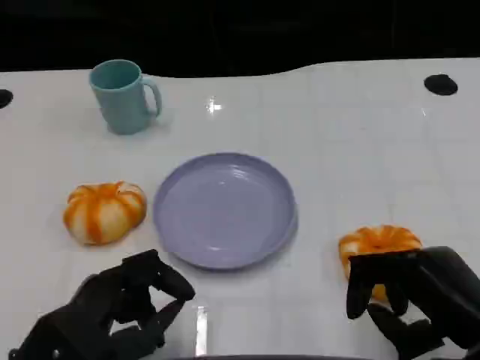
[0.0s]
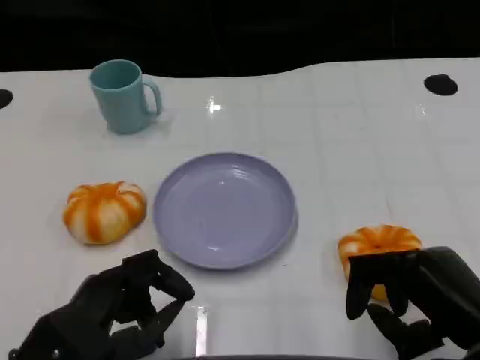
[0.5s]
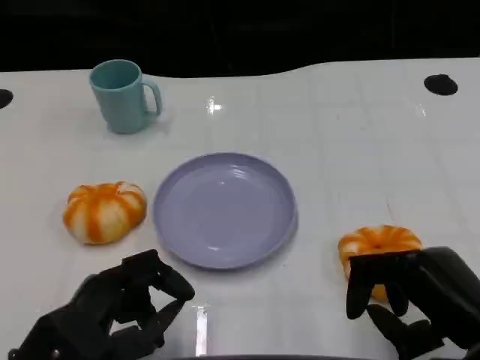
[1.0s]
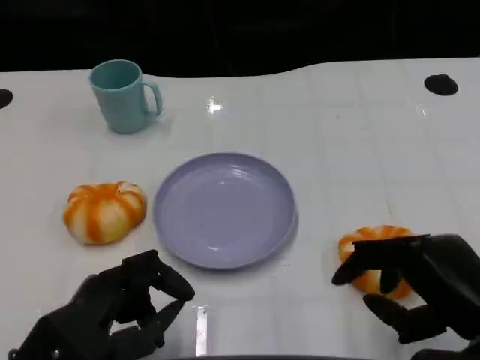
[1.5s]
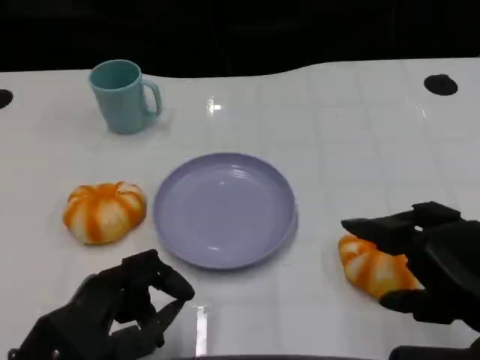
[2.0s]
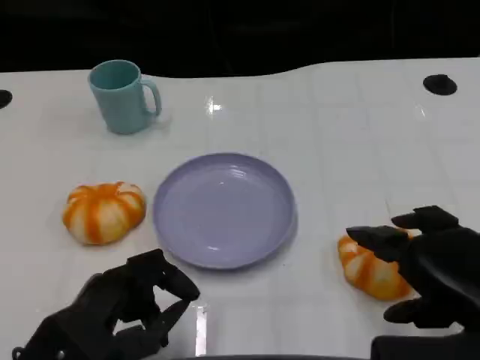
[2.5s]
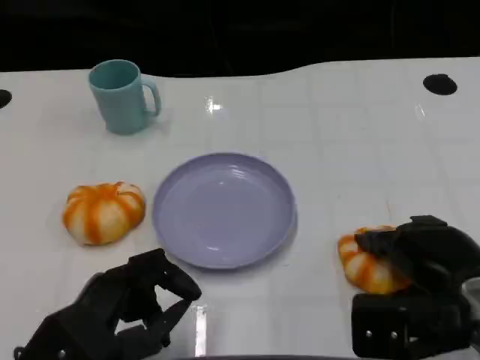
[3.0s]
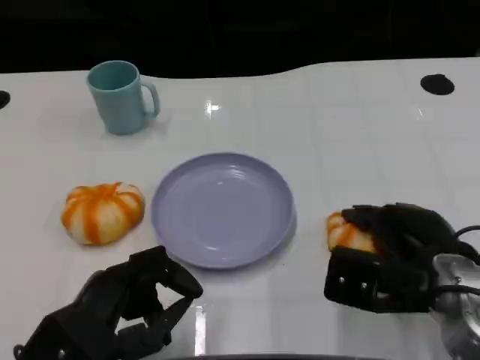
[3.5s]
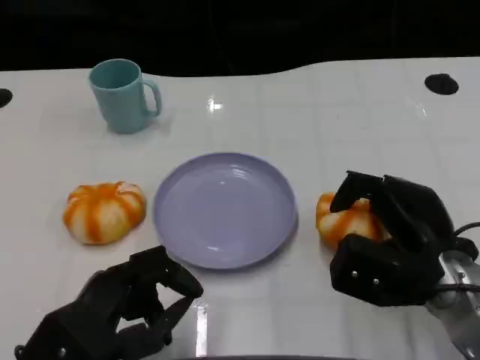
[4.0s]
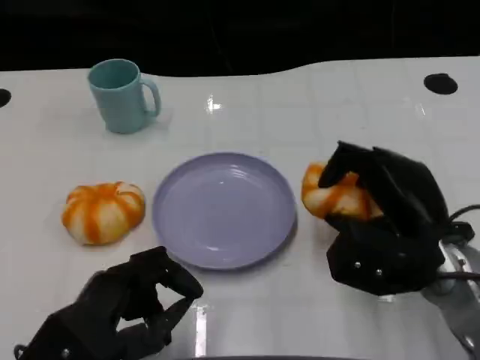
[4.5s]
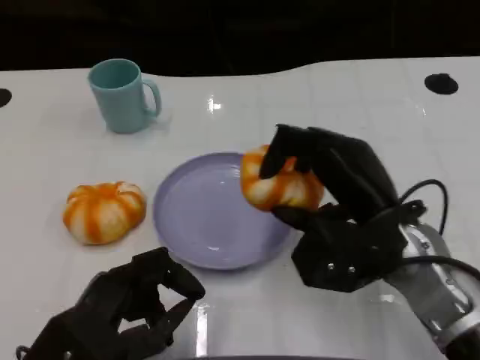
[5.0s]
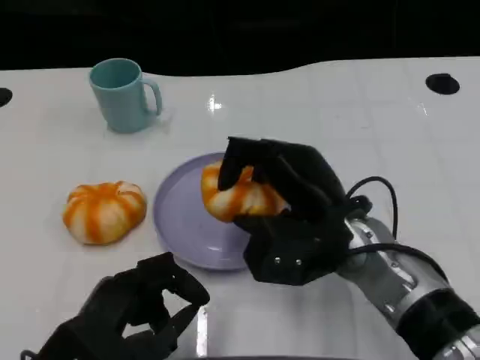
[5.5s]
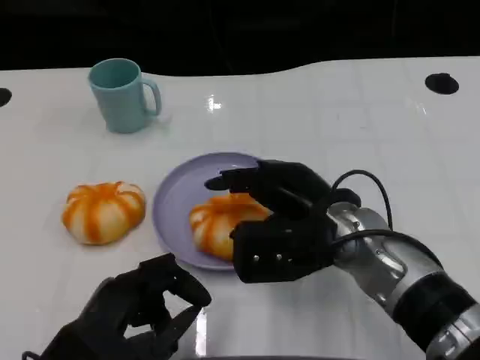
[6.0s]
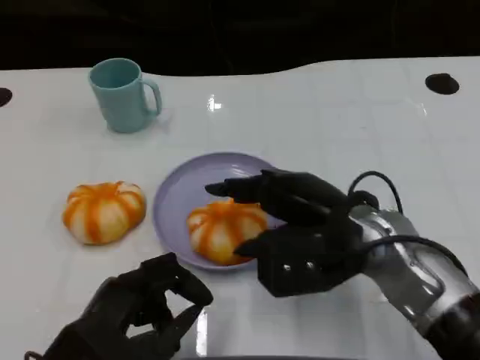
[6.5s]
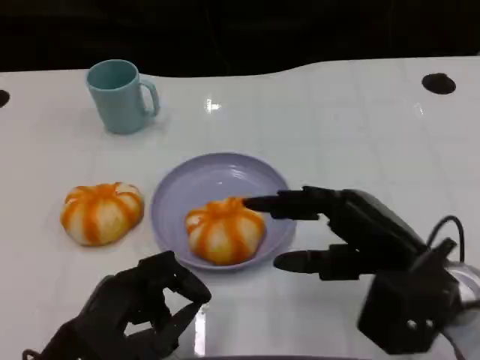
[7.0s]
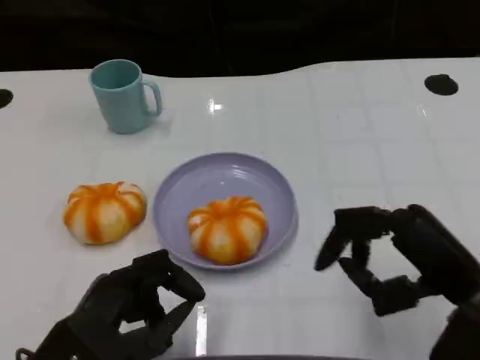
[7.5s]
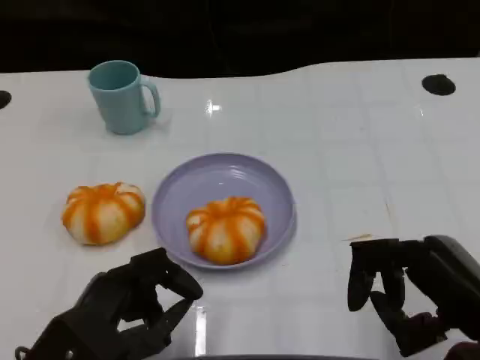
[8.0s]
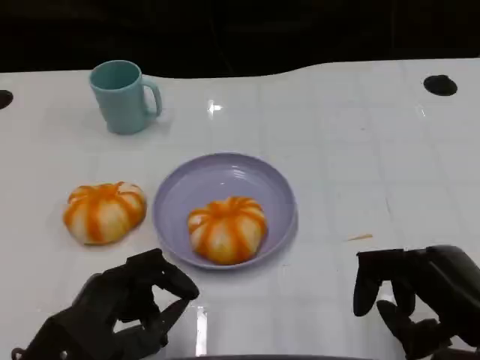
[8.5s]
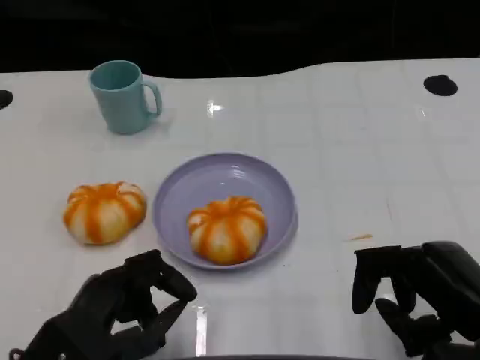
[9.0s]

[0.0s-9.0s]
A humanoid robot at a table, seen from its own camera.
Task of the whole recording: Grasp the bread from the table and place it into the plate.
2.0s to 4.5s: The right hand heads forward and to the left, covering some 10 cm.
4.5s to 7.0s: The right hand reaches approximately 10 cm to the left, then returns.
7.0s to 9.0s: The right hand heads to the right and backward, covering roughly 5 cm.
